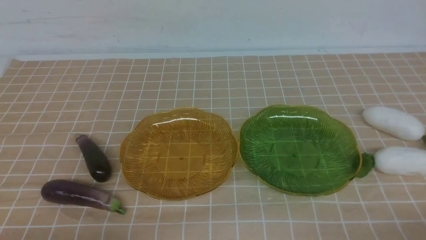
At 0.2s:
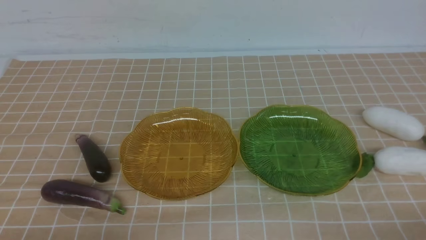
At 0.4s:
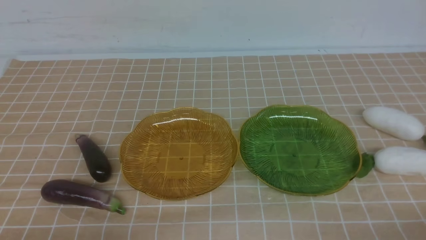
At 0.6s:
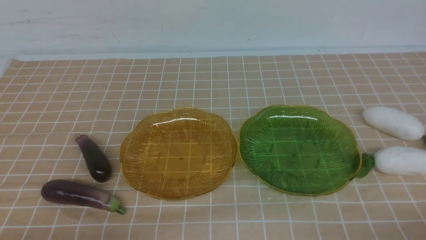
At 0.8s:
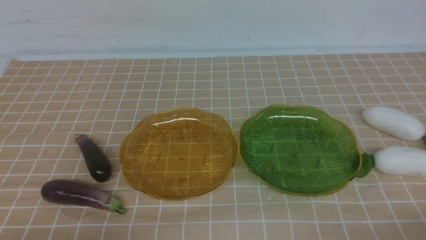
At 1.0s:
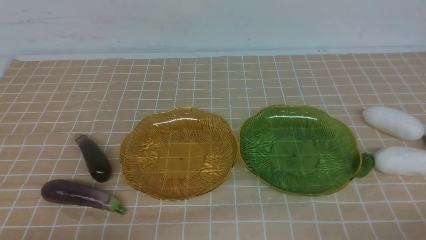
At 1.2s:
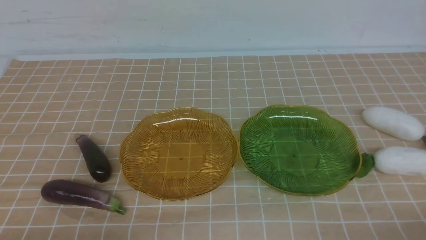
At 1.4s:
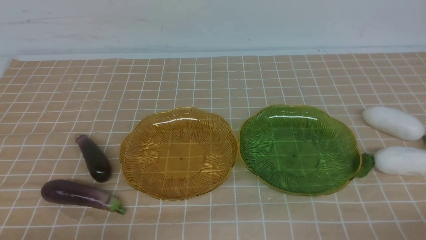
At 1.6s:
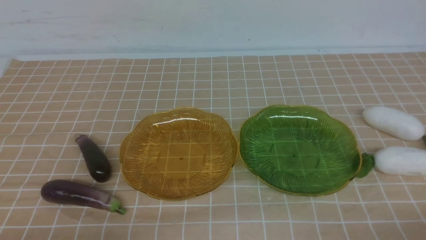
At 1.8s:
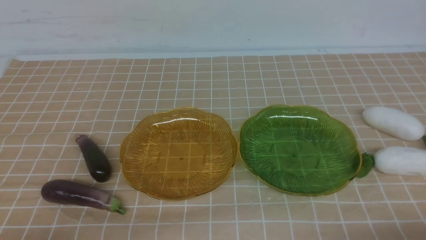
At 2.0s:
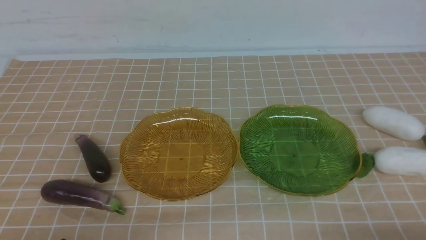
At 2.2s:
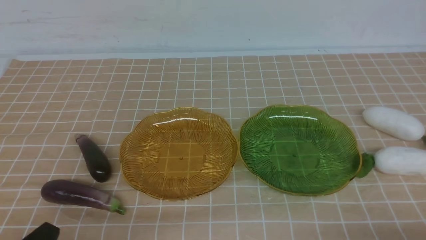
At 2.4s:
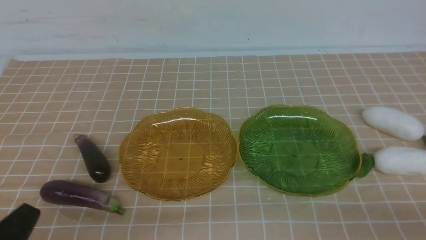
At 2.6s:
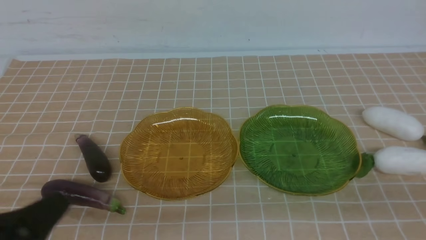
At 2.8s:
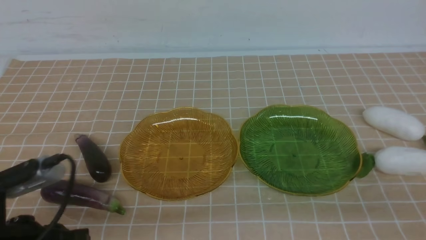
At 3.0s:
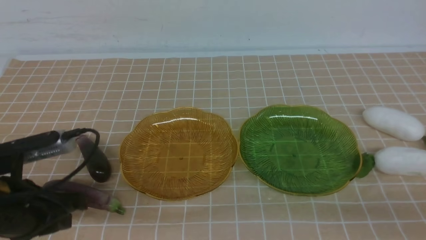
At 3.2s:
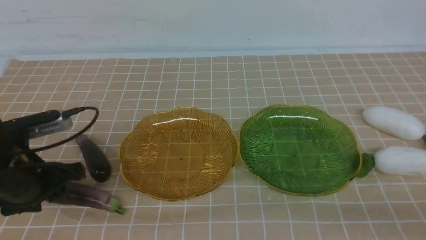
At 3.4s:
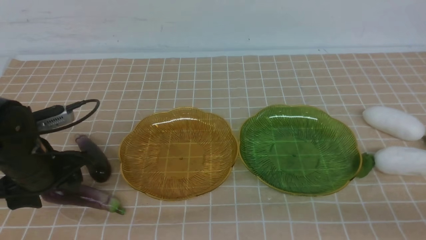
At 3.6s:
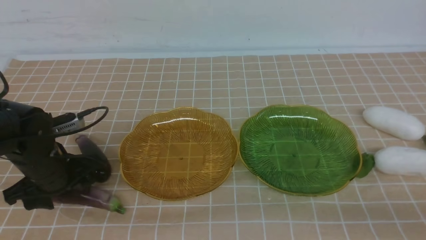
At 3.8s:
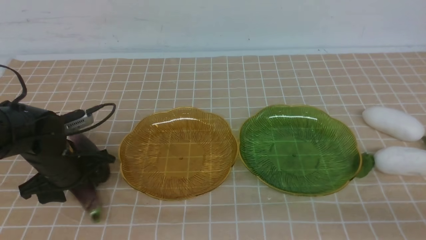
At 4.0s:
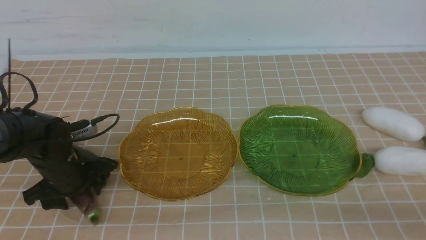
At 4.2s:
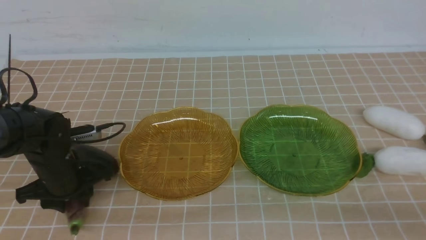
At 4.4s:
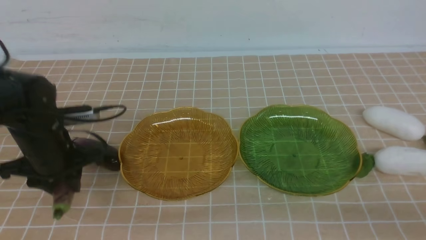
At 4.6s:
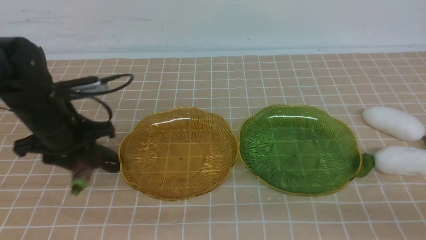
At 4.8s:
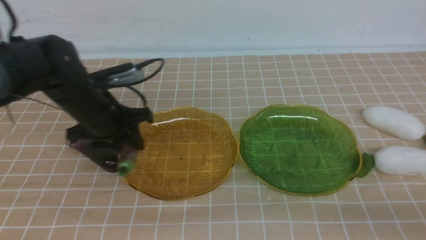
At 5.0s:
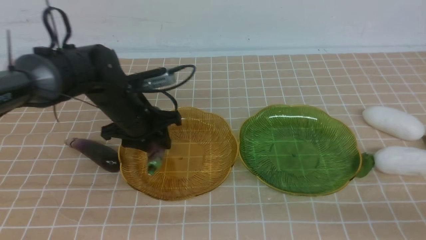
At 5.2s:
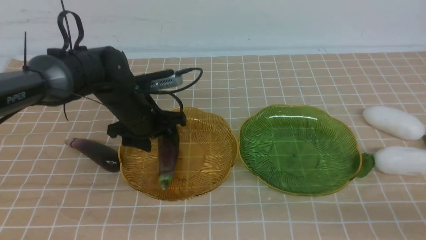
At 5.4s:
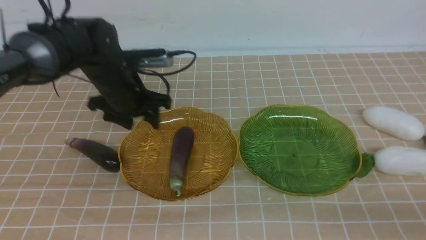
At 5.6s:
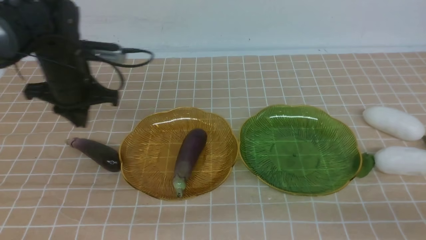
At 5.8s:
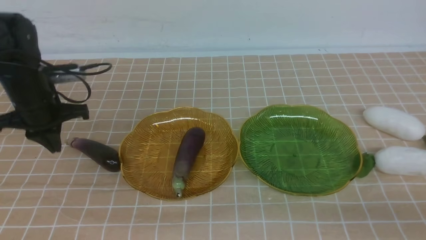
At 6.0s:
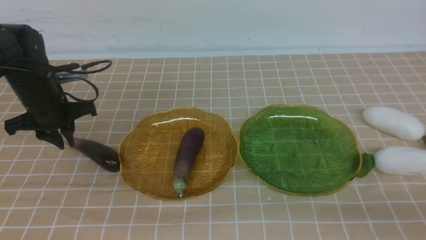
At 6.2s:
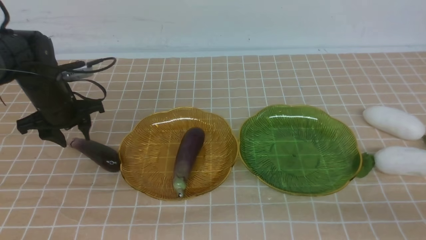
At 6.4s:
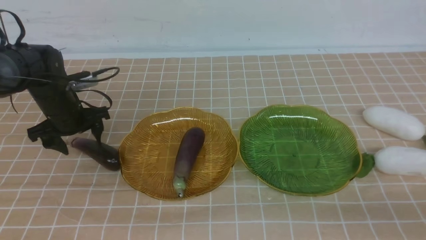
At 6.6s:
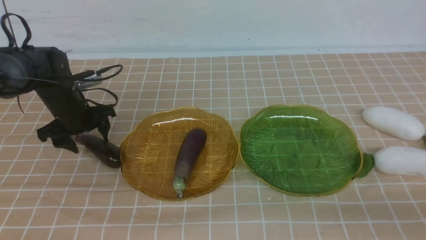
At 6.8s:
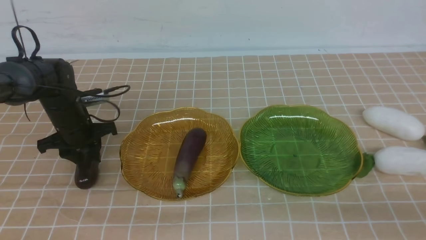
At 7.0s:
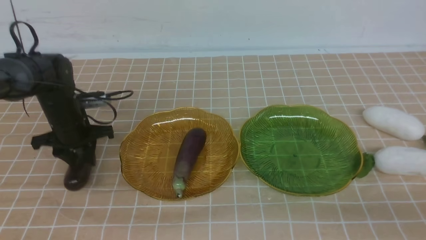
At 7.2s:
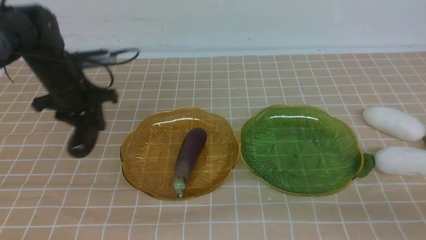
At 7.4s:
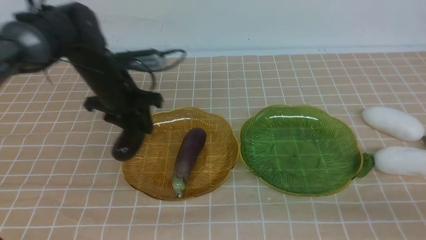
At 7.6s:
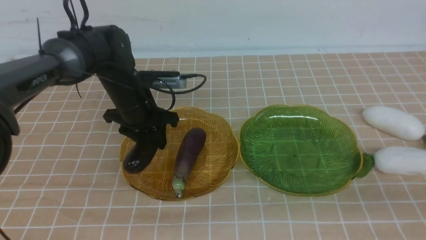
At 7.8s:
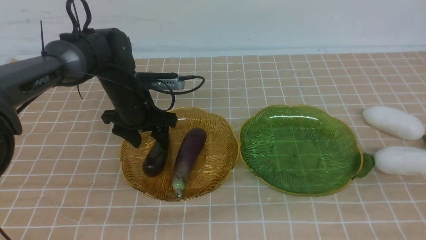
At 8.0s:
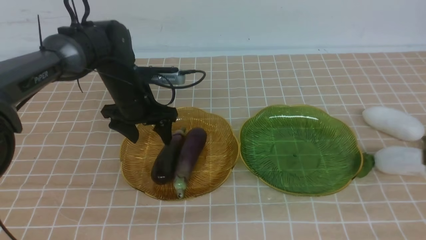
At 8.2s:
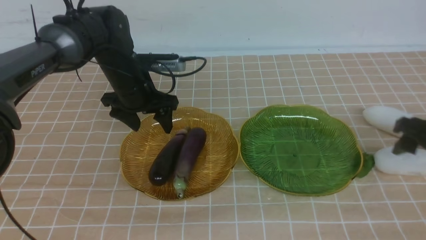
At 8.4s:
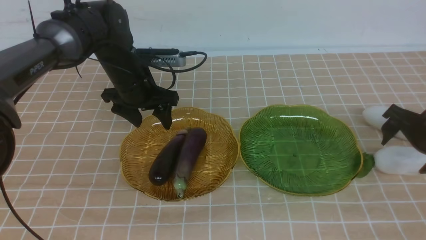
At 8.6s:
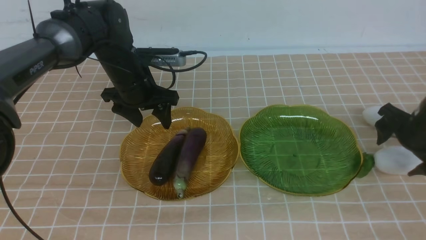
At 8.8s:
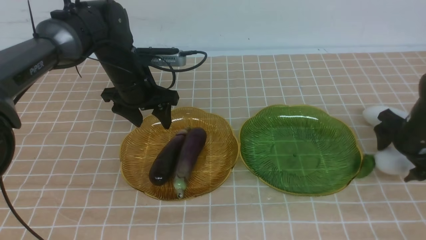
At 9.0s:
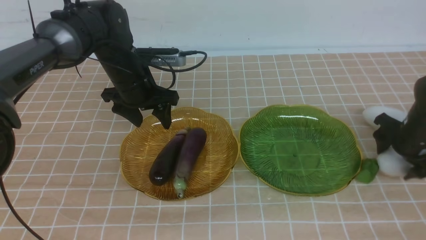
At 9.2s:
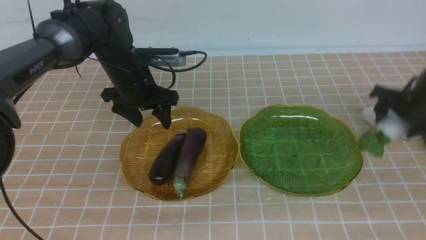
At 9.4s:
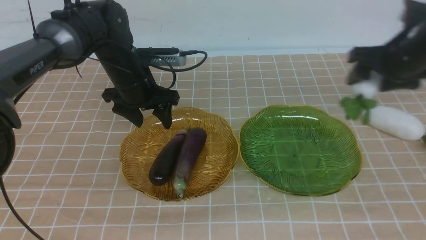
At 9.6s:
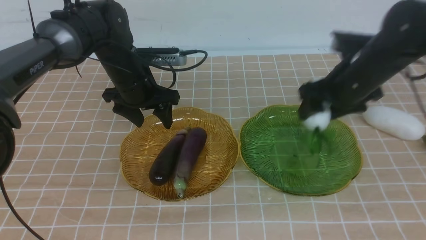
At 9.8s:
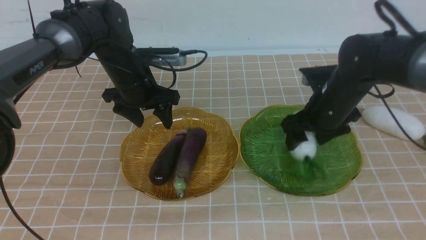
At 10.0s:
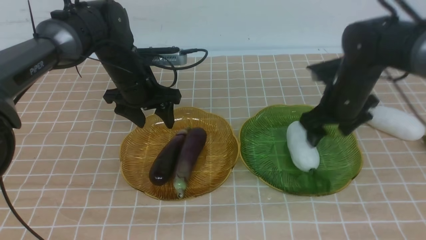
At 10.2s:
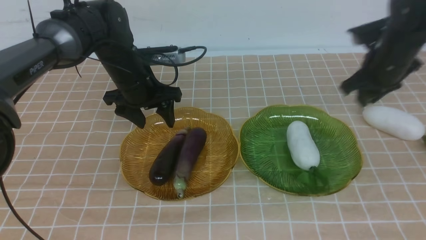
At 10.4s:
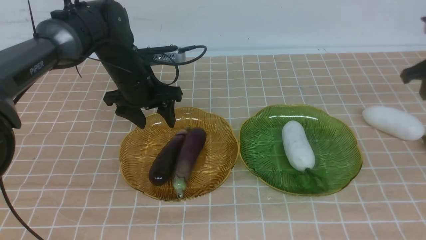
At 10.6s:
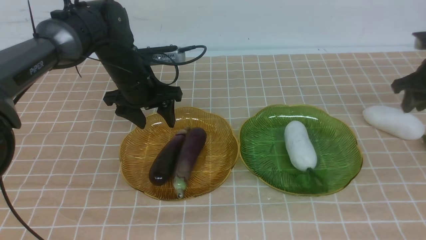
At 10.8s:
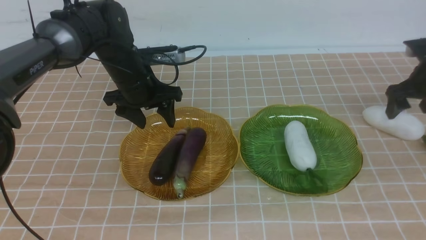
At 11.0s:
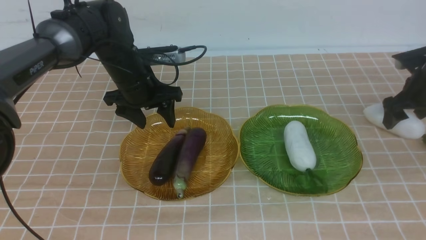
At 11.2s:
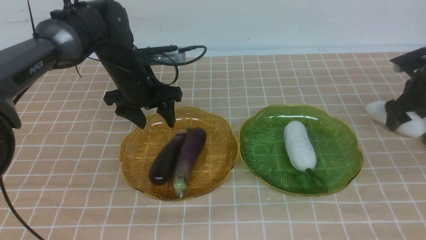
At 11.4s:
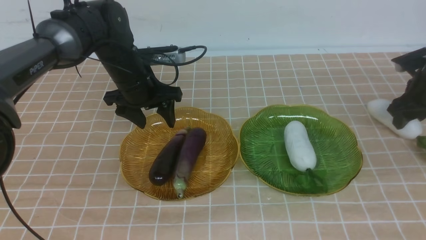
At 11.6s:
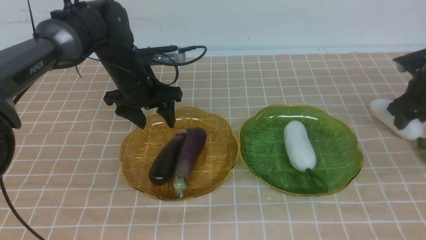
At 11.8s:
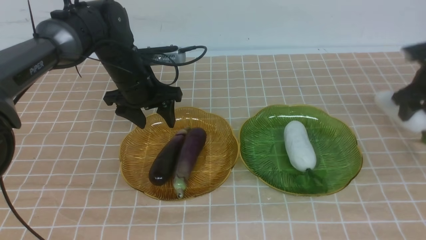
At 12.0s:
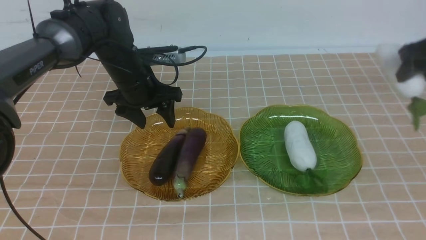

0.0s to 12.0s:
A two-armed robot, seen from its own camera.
Step, 0.0s to 8.0s: use the left arm to grab an eggplant and put it into the left plate.
Step, 8.2s to 10.0s: use the right arm to grab a radish and put it into the right plate.
1.6s to 3.0s: The left gripper travels forward by approximately 20 cm, and opens.
3.0s to 4.4s: The left gripper moves forward and to the right, roughly 10 cm.
4.4s to 6.0s: The left gripper shifts approximately 10 cm to the left, forward and downward, and opens up.
6.0s to 7.6s: The left gripper moves to the right and upward, roughly 15 cm, and closes, then reopens, while the right gripper goes roughly 15 cm forward, and opens.
7.6s to 9.0s: The right gripper goes about 15 cm forward and to the left.
9.0s to 10.4s: The right gripper is displaced to the right by roughly 20 cm, and closes and opens again.
10.4s to 12.0s: The right gripper goes approximately 25 cm backward, to the left and upward.

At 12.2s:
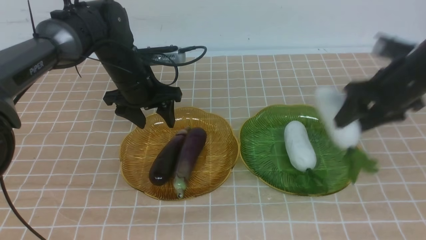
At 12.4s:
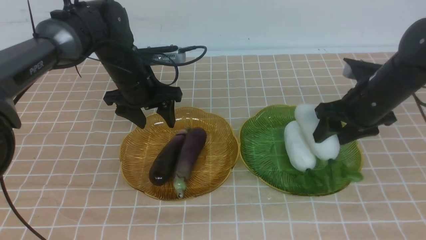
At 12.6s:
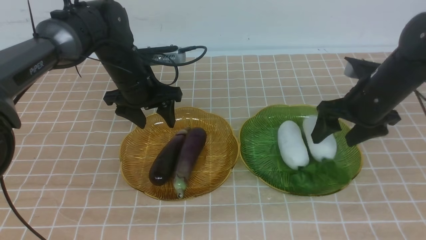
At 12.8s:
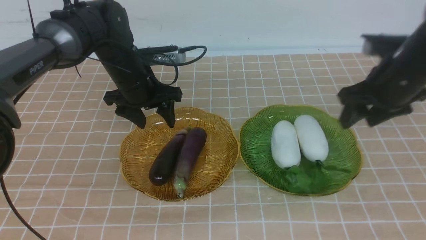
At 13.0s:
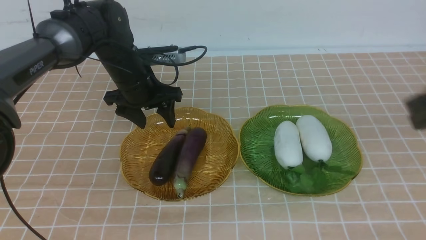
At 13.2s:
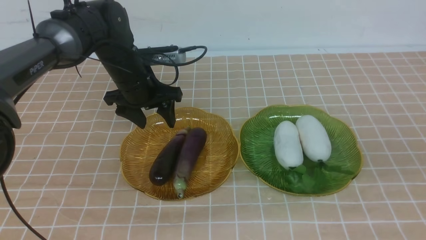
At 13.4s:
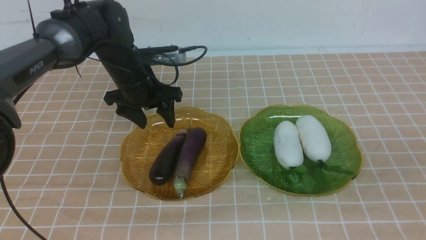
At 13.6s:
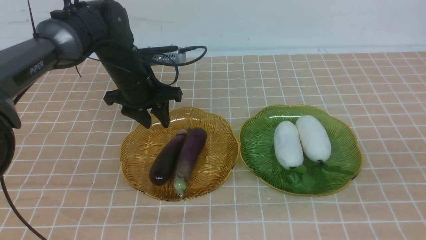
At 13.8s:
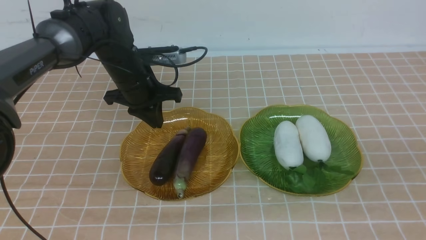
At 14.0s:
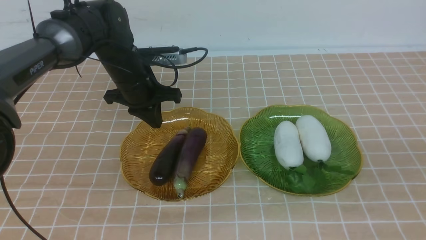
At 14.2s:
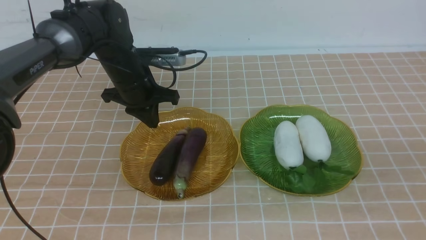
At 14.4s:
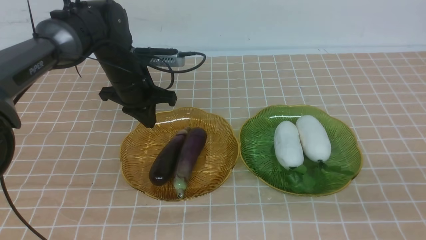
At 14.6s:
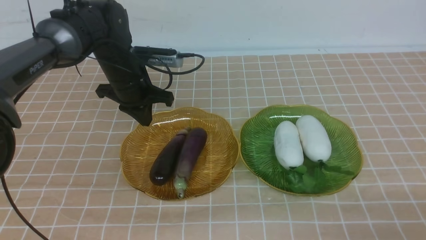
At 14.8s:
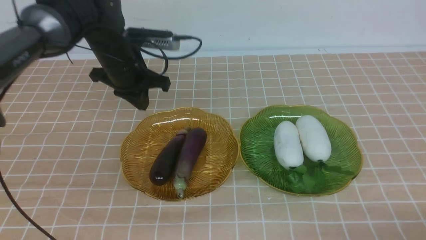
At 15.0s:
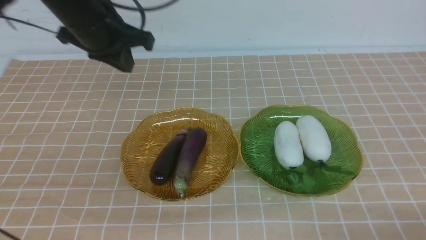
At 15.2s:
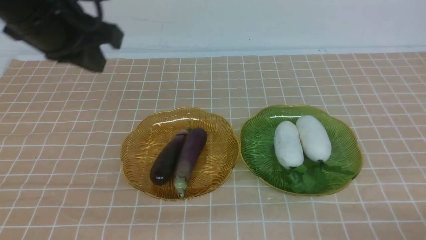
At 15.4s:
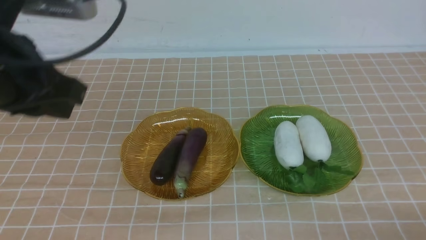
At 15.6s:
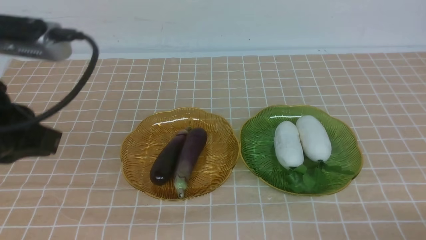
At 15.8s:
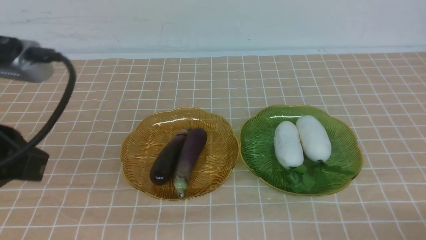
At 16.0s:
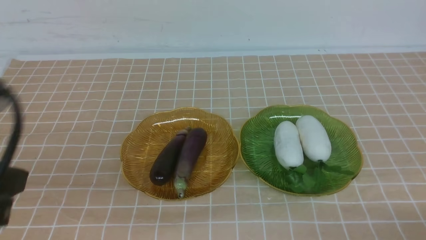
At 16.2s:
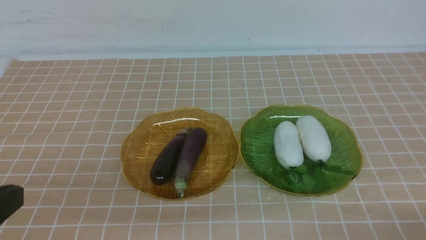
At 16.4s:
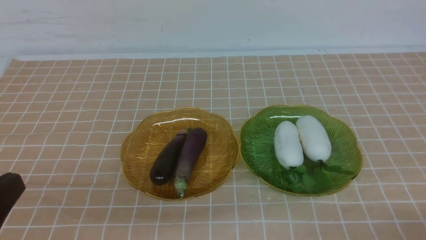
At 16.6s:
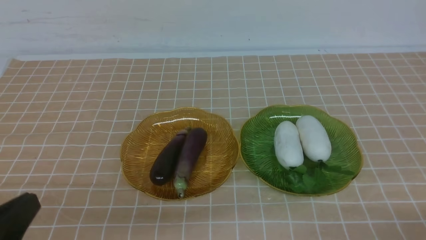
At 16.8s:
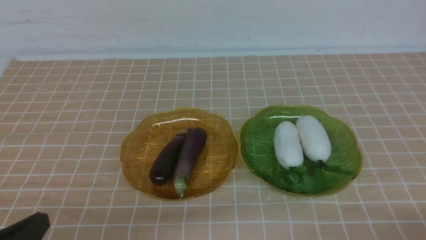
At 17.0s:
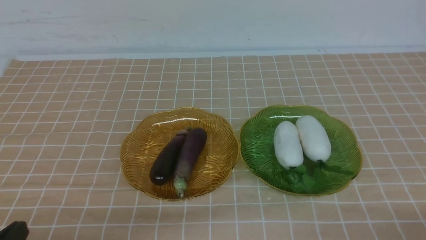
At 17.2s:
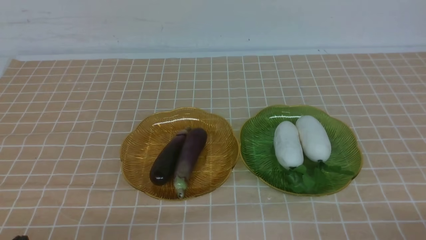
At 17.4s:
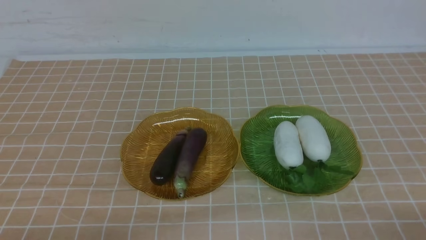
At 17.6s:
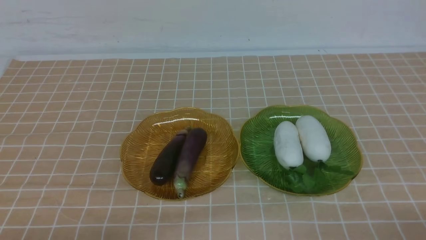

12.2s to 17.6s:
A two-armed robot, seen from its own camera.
12.2s to 13.6s: The left gripper closes its fingers. The right gripper goes some 20 cm backward and downward.
13.6s to 15.0s: The left gripper travels backward and upward by roughly 35 cm, while the right gripper shifts about 10 cm downward.
15.0s to 16.2s: The left gripper heads downward, covering roughly 20 cm.
16.2s to 17.6s: The grippers make only small movements.
